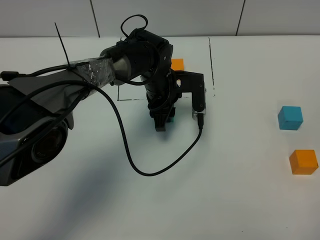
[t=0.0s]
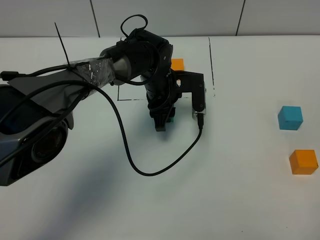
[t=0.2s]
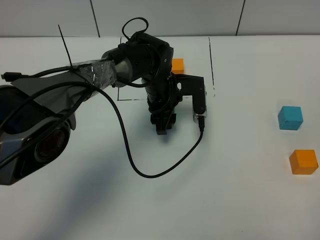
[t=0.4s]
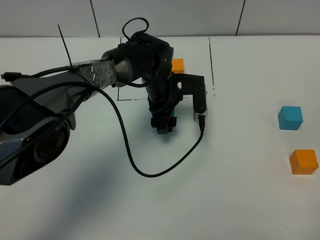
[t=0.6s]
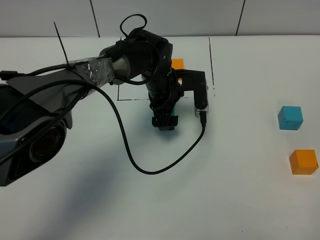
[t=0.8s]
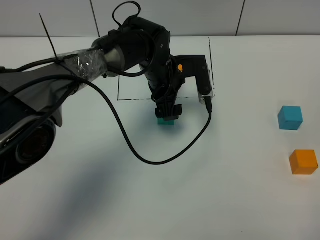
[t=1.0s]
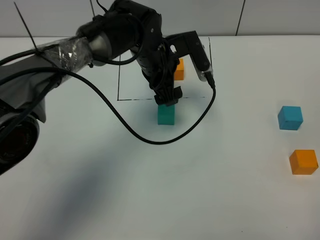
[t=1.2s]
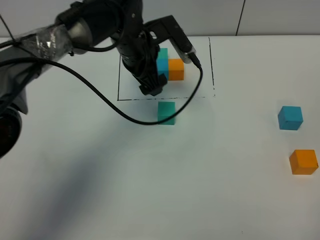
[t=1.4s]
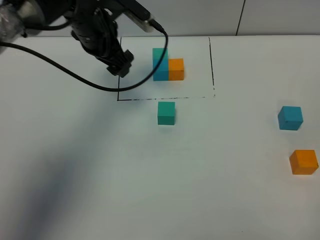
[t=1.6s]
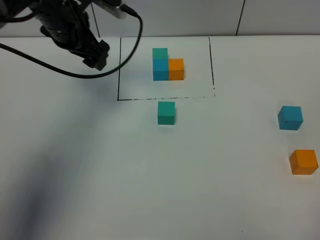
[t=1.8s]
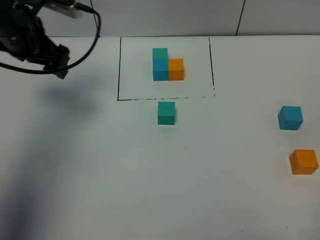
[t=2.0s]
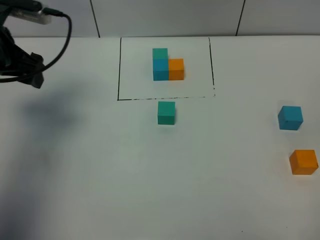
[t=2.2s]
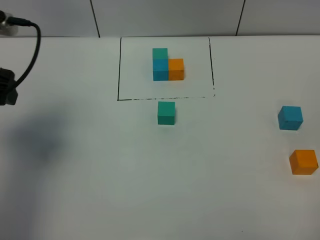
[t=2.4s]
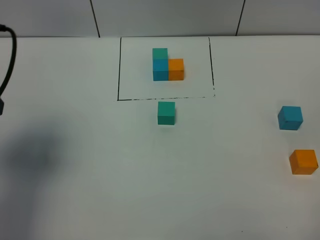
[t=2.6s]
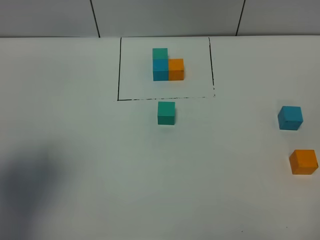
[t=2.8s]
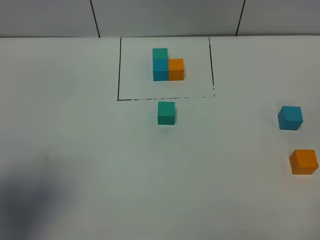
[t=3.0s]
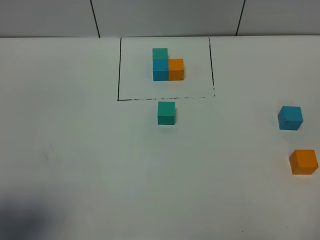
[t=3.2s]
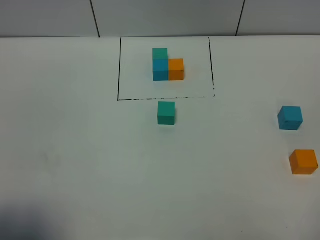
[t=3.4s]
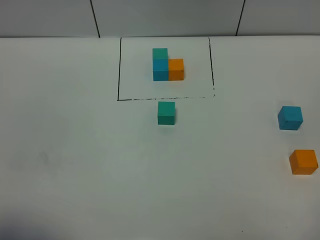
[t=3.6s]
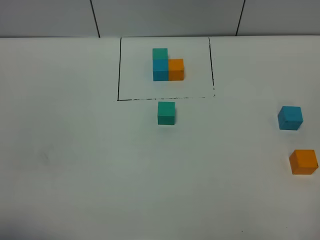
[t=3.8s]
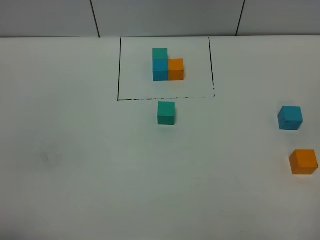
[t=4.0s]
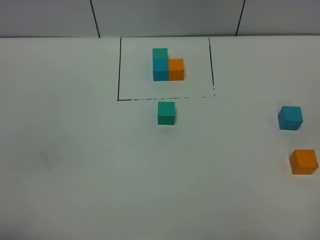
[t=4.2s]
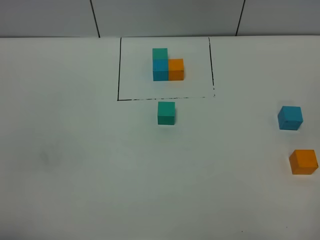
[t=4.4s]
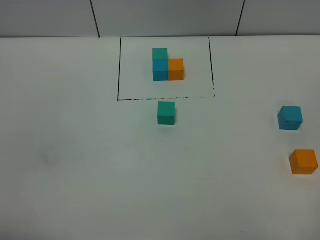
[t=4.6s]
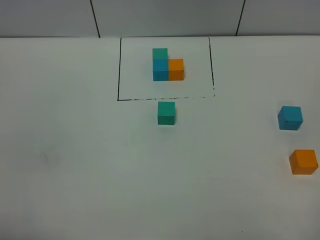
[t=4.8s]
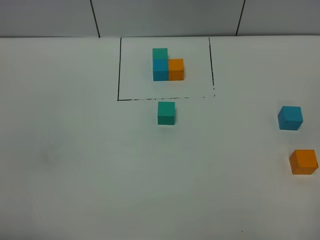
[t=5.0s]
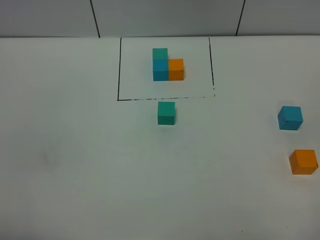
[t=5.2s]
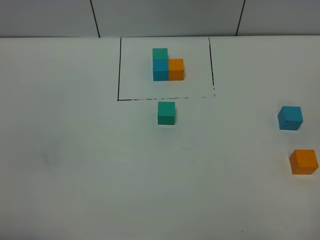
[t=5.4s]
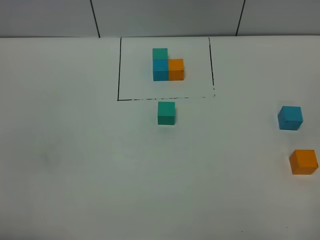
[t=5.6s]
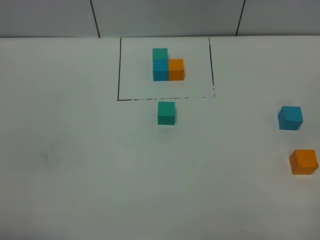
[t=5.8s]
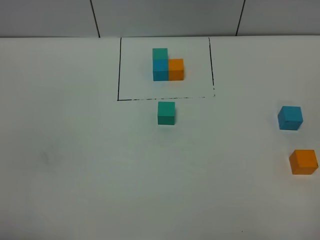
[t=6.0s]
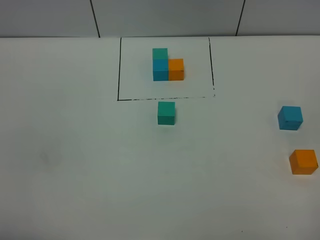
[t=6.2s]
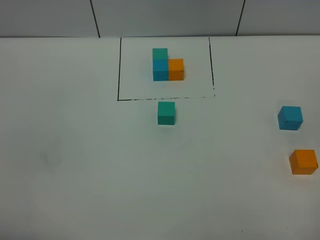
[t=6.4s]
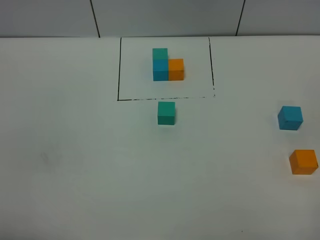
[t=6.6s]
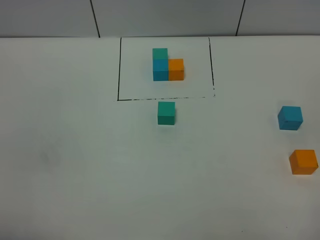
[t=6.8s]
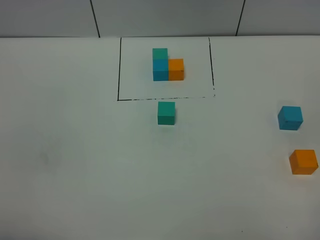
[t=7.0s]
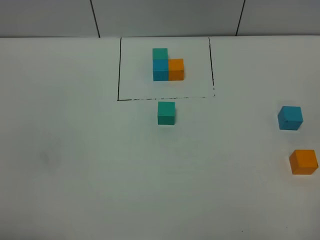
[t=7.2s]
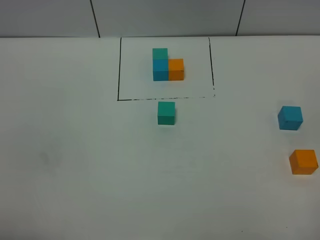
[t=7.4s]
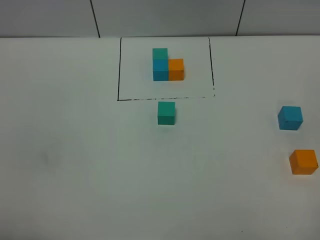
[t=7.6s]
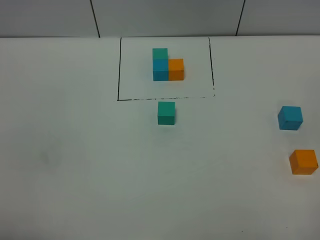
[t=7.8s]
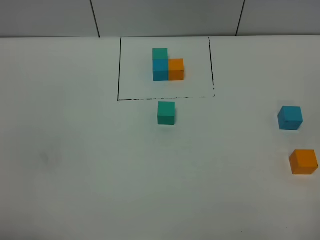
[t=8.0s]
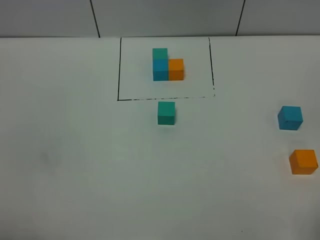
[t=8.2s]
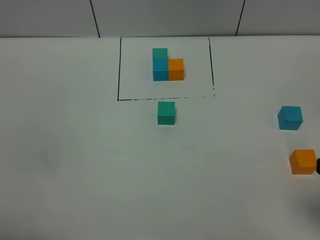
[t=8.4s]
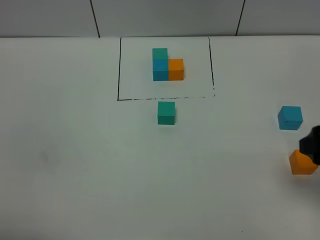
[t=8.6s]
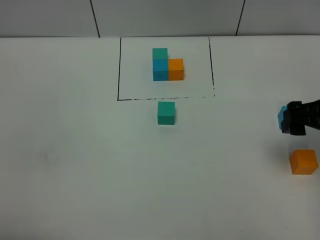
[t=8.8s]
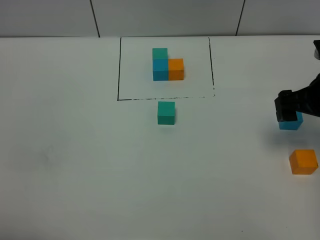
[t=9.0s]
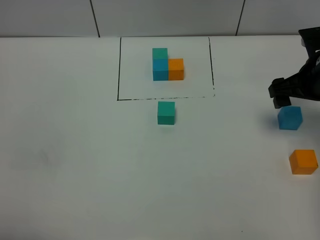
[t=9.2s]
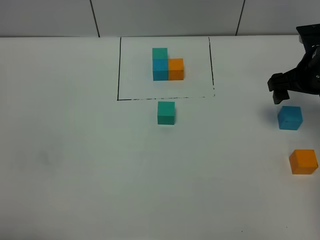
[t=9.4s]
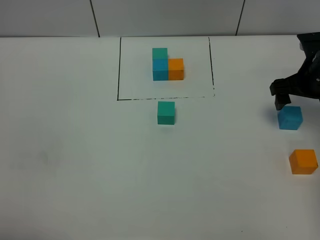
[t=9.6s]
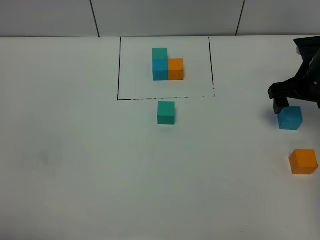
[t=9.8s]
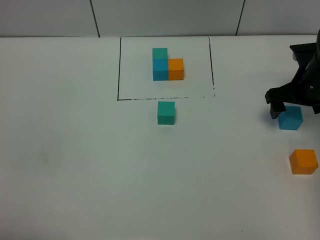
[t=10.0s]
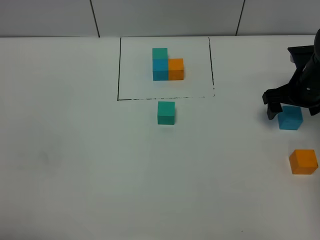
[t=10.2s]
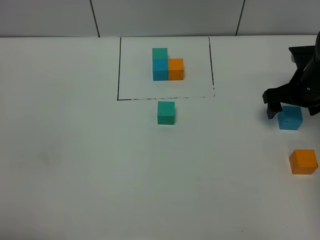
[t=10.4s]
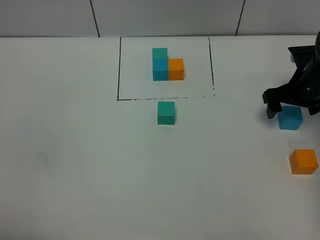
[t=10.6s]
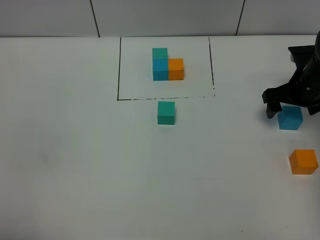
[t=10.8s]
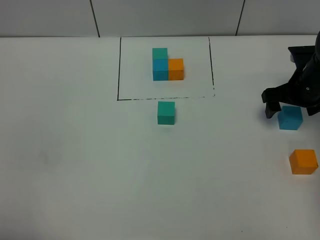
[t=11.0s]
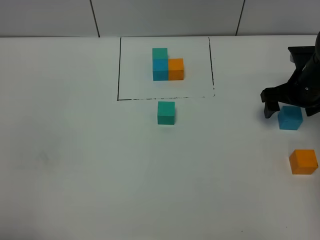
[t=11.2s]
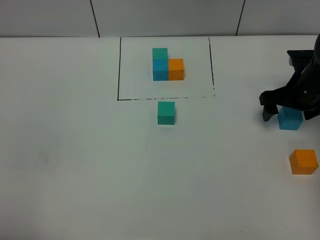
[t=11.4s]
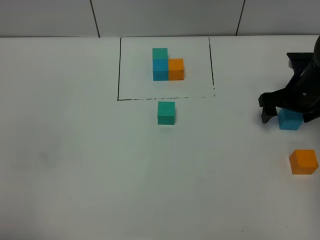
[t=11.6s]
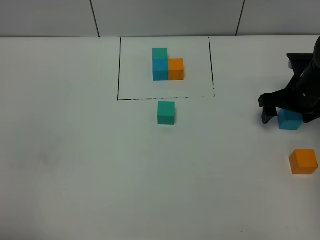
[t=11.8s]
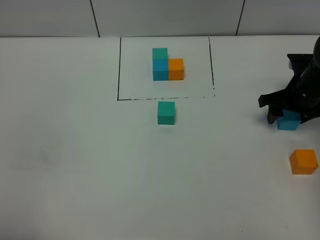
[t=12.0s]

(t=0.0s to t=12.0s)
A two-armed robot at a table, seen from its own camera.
Task of the whole recording: According to the building block template in front, assemble the scattered blocks together.
t=0.0s - t=1.6s: The left gripper is displaced upward and to the left by about 20 cm, and opens.
t=1.6s - t=3.0s: The left gripper is displaced backward and to the left by some 35 cm.
t=3.0s - t=4.4s: The left gripper goes some 15 cm backward.
t=6.0s - t=7.6s: Neither gripper changes place.
t=7.6s - t=9.0s: The right gripper shifts roughly 30 cm forward.
t=9.0s - t=10.4s: The right gripper is displaced forward and downward by roughly 10 cm.
t=10.4s - t=12.0s: The right gripper closes.

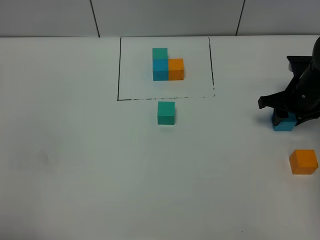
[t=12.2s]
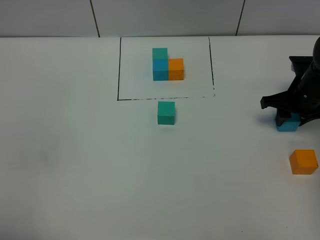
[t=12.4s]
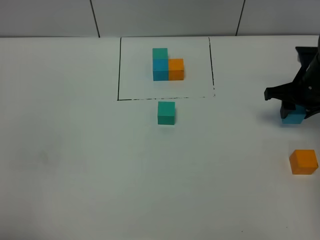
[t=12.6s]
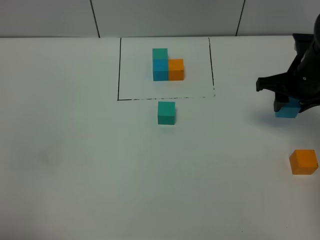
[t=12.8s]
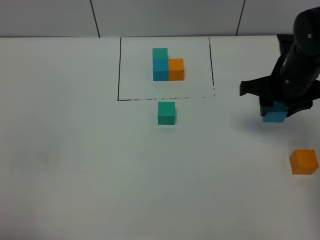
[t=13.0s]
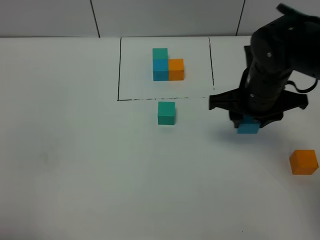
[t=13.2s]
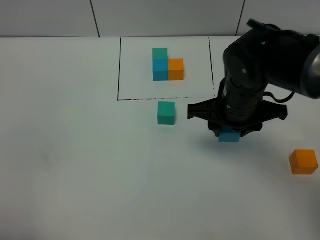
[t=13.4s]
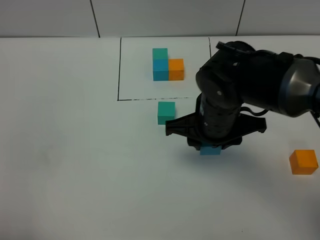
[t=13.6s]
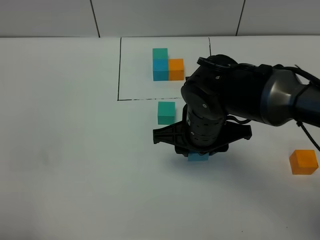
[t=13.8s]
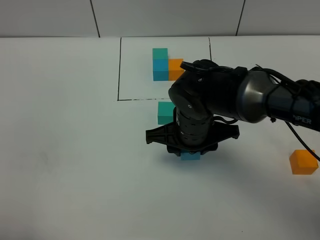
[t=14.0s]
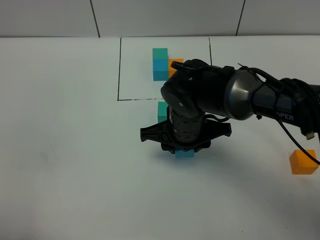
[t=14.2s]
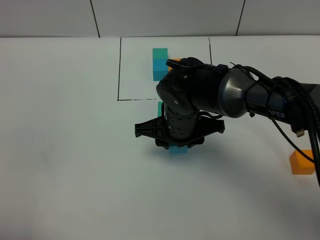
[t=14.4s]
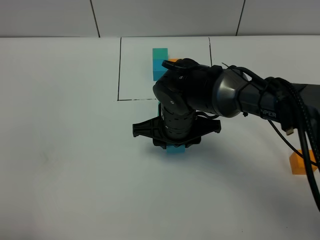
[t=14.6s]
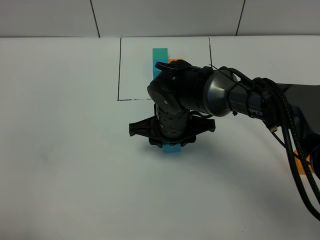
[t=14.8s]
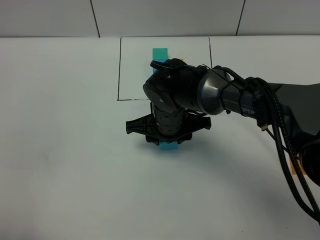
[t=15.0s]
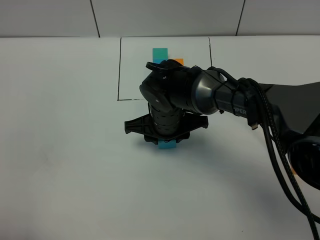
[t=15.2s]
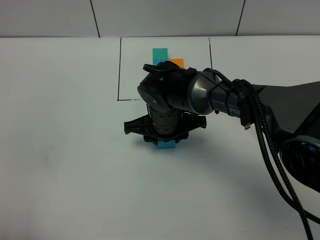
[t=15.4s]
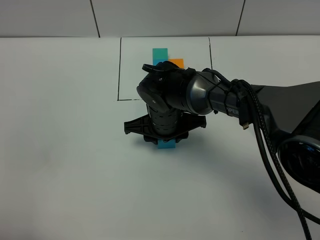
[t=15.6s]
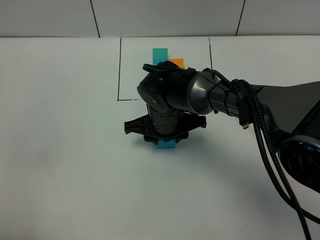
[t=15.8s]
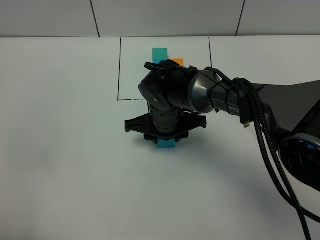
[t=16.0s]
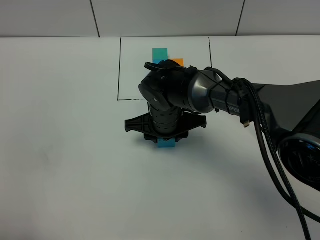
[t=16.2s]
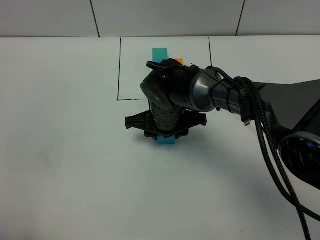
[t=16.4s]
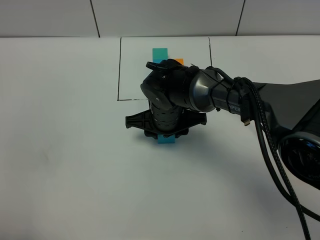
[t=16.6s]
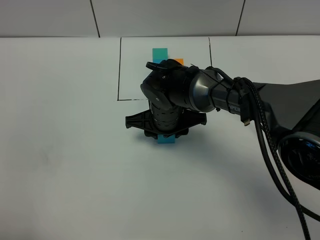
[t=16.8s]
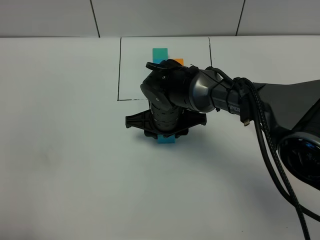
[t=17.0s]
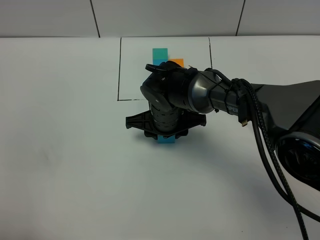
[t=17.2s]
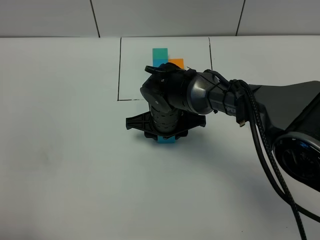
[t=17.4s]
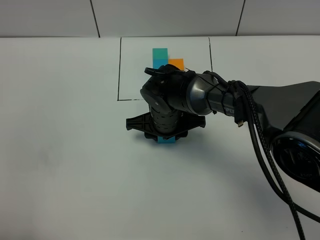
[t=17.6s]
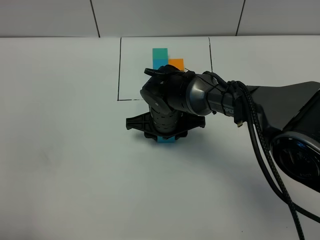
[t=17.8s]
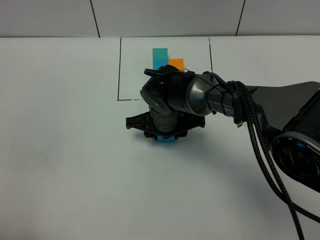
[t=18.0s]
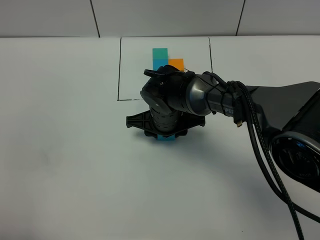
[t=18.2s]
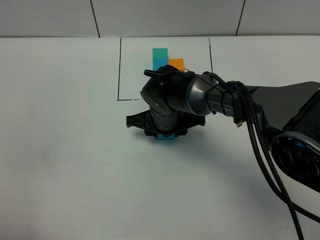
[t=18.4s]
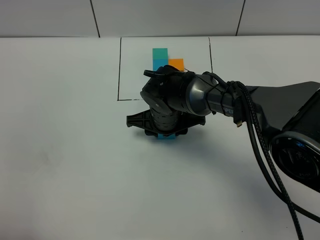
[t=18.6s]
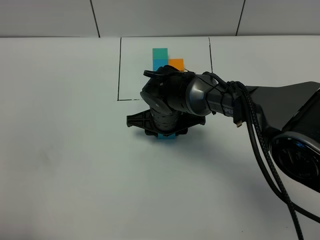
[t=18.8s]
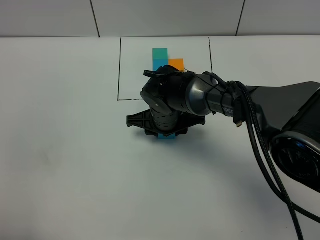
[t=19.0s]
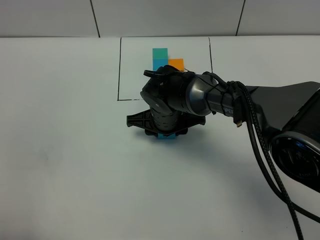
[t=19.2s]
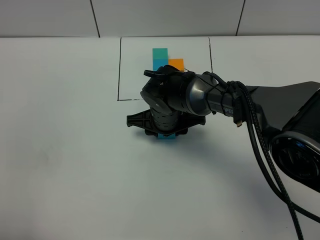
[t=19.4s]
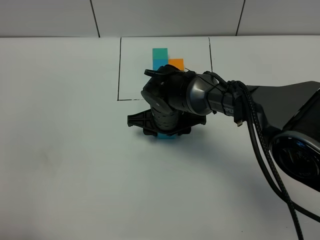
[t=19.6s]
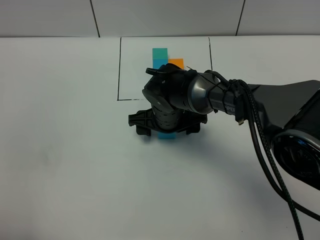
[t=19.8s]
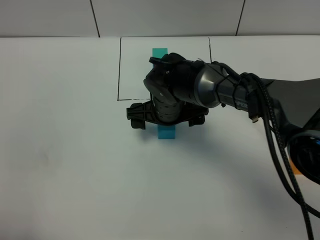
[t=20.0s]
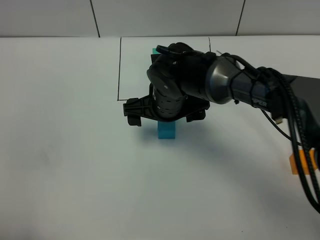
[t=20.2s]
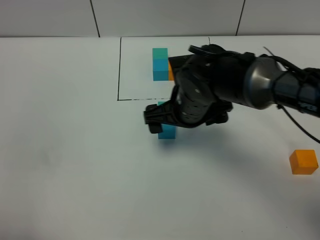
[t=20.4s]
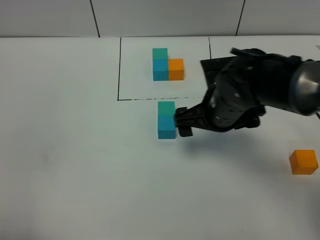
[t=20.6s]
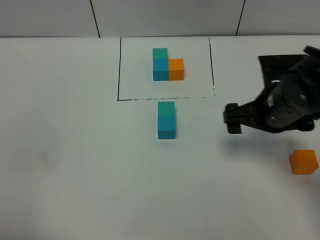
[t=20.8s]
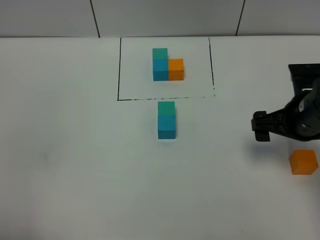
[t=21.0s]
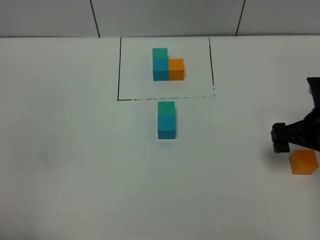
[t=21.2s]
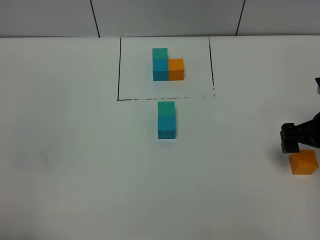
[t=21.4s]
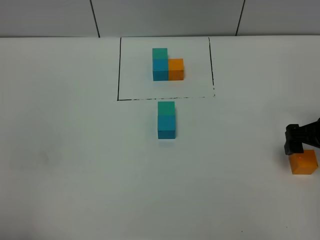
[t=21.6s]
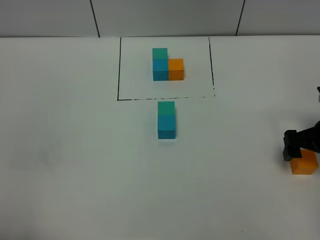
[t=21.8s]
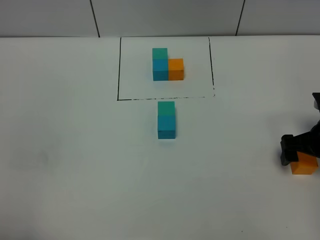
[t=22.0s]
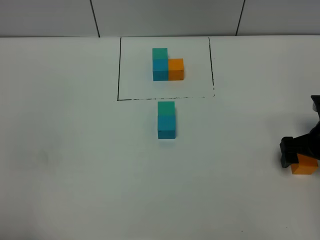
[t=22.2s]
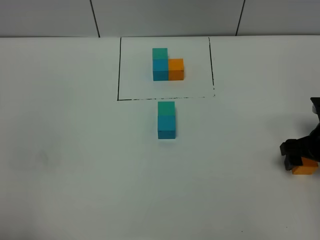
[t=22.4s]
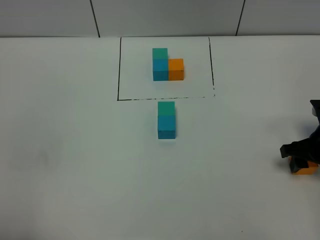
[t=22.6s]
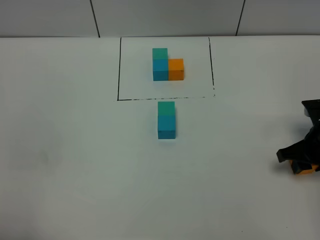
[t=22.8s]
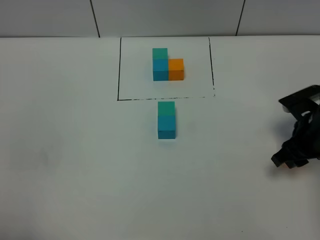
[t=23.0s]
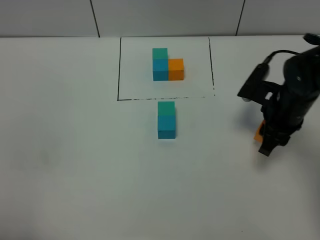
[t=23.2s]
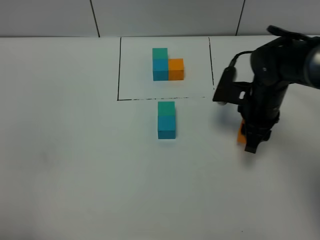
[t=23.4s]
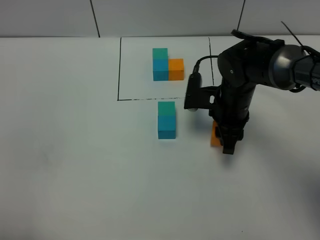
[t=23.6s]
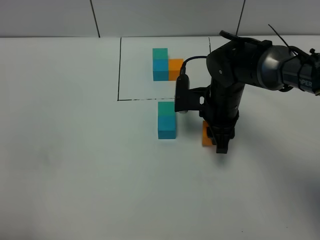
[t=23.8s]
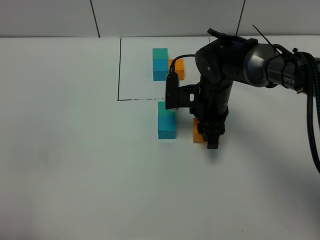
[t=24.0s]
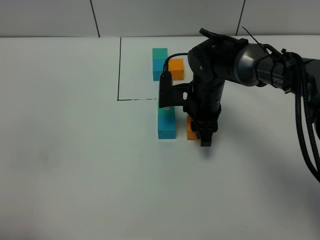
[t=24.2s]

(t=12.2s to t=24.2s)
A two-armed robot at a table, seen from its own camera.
Task of the whole recording: According to the building block template in front, assemble the scattered blocks together.
Step, t=12.2s - t=19.8s: Put the blue build block on the behind of the green build block.
t=12.2s - t=13.8s: The right gripper goes roughly 25 cm to the left.
t=13.8s - t=15.2s: The right gripper shifts approximately 10 cm forward, downward and to the left.
t=15.2s - t=18.2s: The grippers move only a little.
t=18.2s - t=19.8s: The right gripper opens.
t=19.8s - t=21.2s: The right gripper goes about 30 cm to the right and backward.
t=21.2s - t=22.6s: The right gripper shifts some 5 cm downward, and closes its fingers.
t=22.6s - t=24.2s: The right gripper is displaced to the left and forward by about 25 cm.
